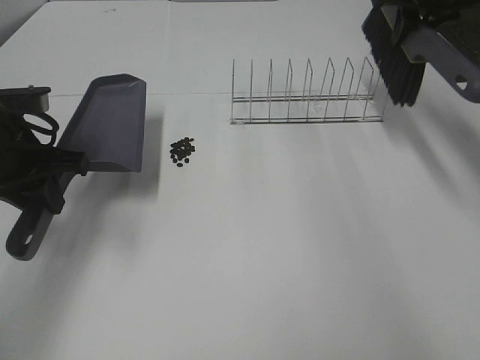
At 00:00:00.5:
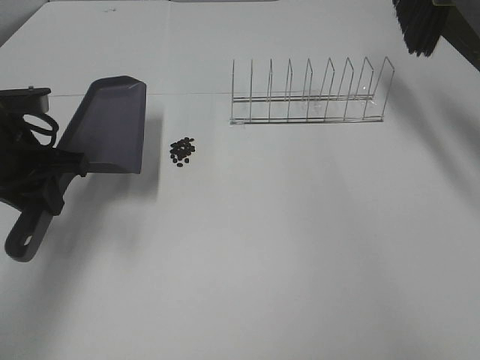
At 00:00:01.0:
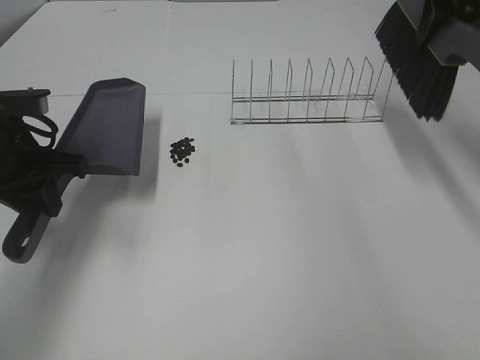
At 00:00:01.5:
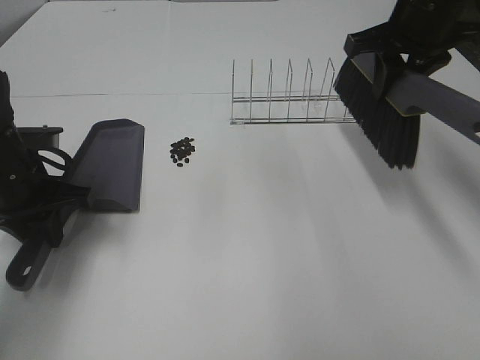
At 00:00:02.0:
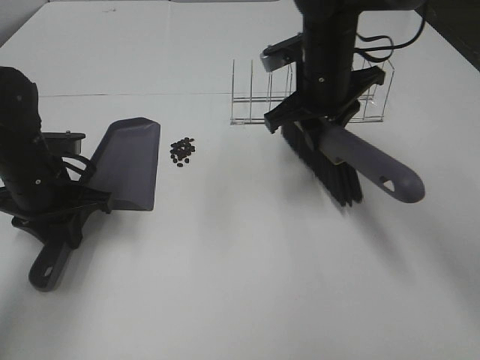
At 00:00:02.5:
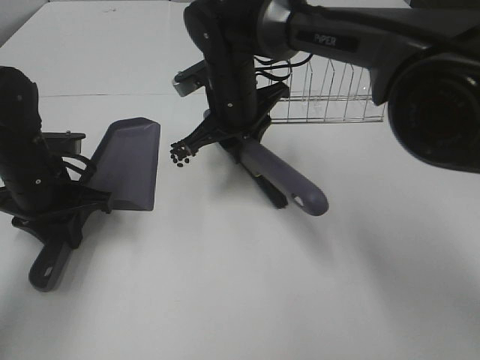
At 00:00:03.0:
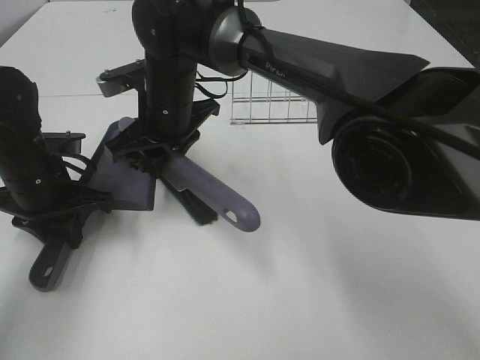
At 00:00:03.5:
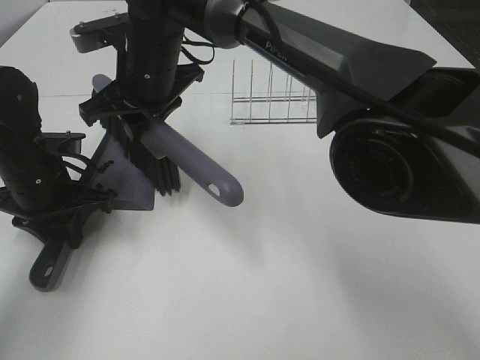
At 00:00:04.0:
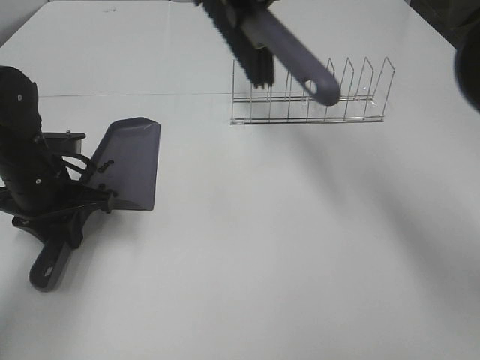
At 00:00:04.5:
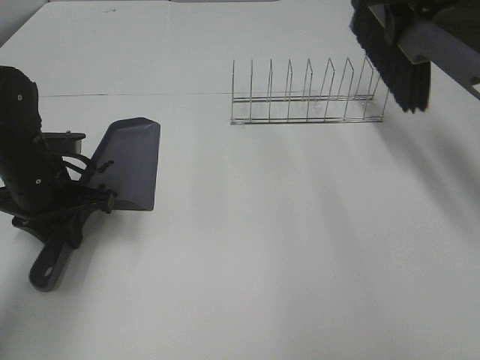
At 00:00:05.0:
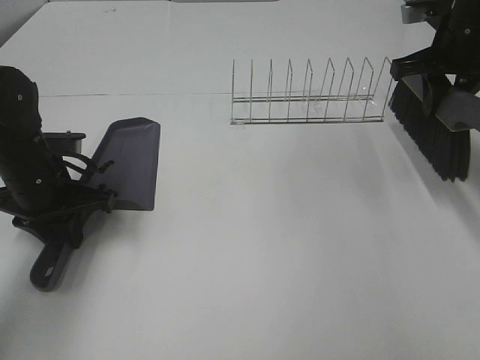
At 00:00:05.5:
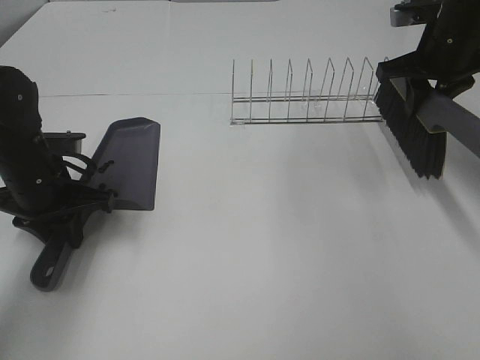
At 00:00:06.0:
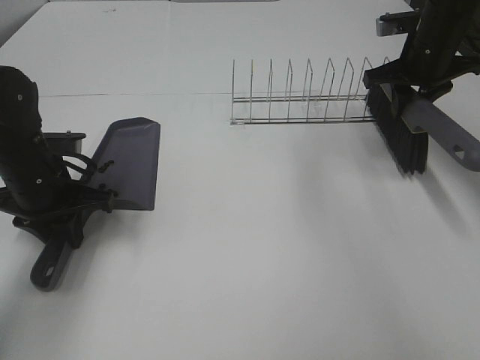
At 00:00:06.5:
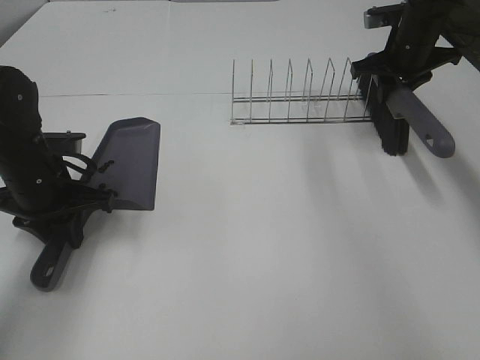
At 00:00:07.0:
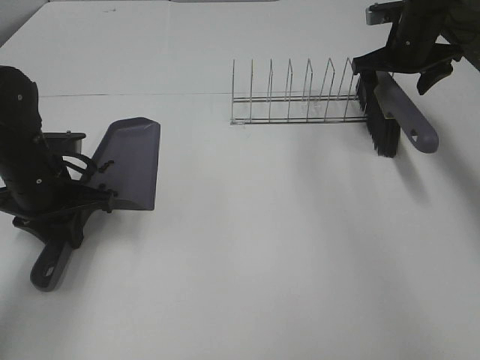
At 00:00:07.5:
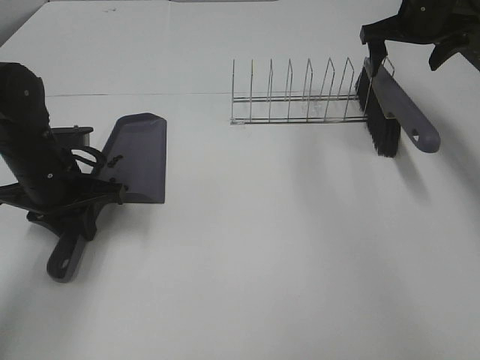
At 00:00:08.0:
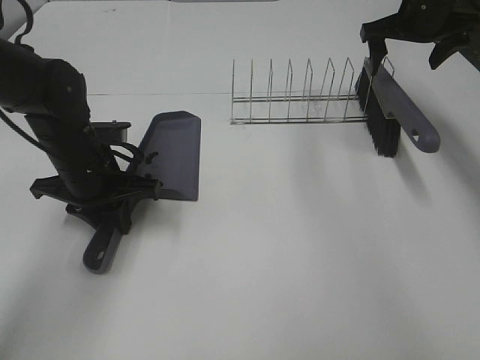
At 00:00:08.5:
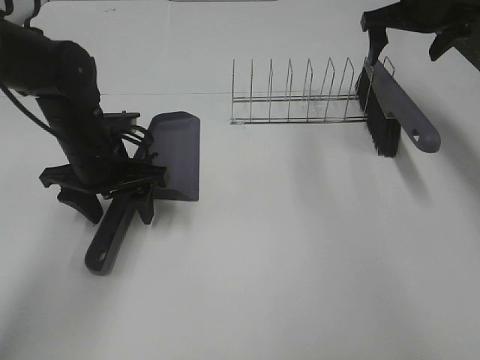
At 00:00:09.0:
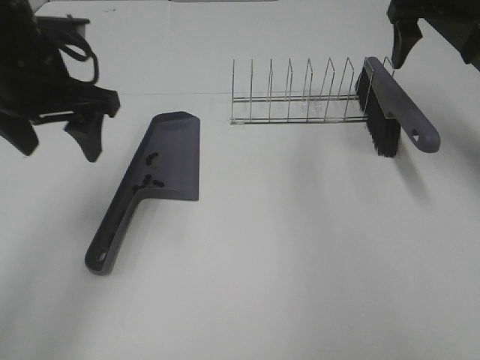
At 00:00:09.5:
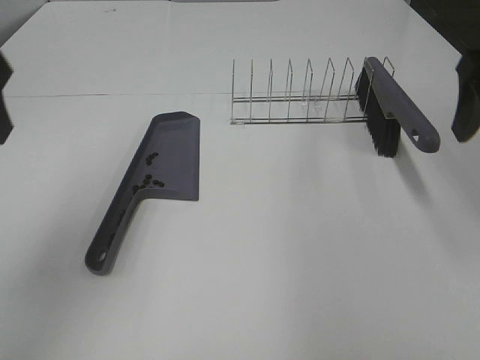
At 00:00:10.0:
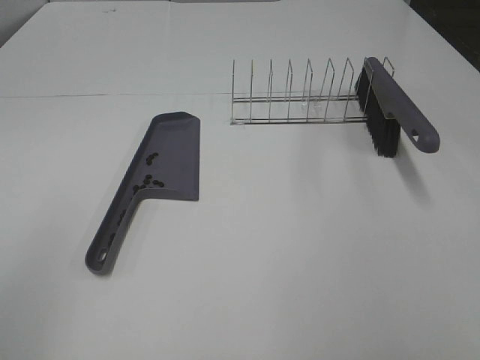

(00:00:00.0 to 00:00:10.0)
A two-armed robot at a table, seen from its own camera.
Task of the whole recording: Sweep Coffee Bean.
Step, 00:00:00.0 - 00:00:03.5: Right hand:sweep the coffee beans into the dustpan.
Step, 00:00:04.0 - 00:00:07.0: Right hand:place the broom on the rack.
Step, 00:00:07.5 - 00:00:08.5: Left hand:place the dustpan on the table.
00:00:00.0 - 00:00:02.0: The left gripper goes about 5 cm downward. Meanwhile the right gripper is displaced to the left, downward and backward by some 25 cm.
00:00:02.0 - 00:00:04.0: The right gripper is displaced upward by approximately 15 cm, and reaches some 20 cm to the left, then returns.
00:00:04.0 - 00:00:06.0: The right gripper is displaced to the right and downward by some 25 cm.
00:00:06.0 - 00:00:08.0: The left gripper moves to the right, roughly 5 cm; the right gripper moves roughly 5 cm, and opens up.
00:00:08.0 - 00:00:10.0: The left gripper moves backward, upward and to the left, approximately 35 cm, and opens up, while the right gripper heads backward, covering some 40 cm.

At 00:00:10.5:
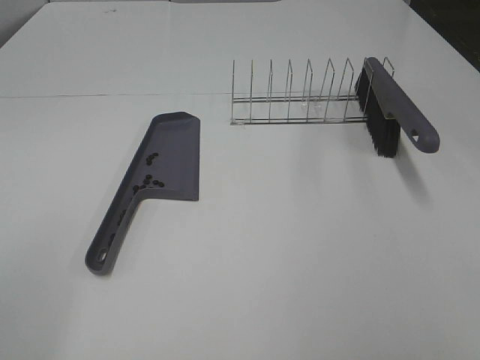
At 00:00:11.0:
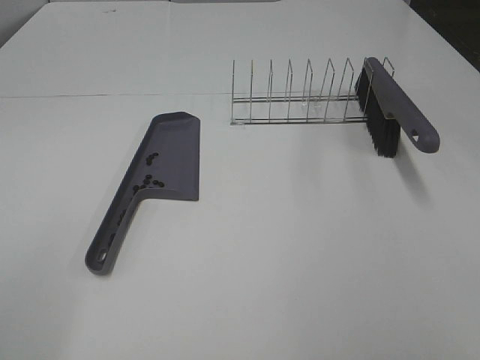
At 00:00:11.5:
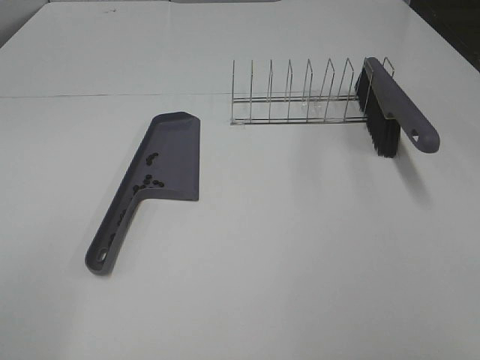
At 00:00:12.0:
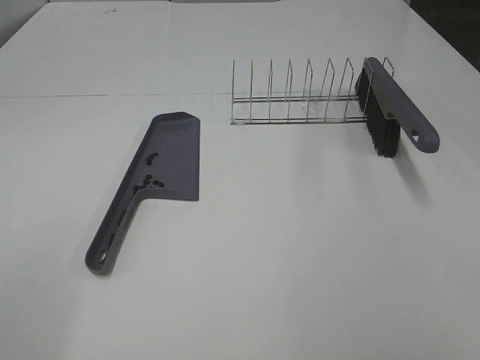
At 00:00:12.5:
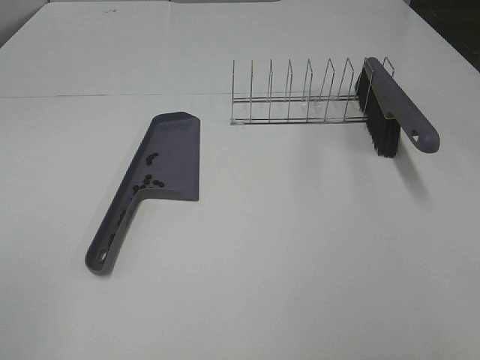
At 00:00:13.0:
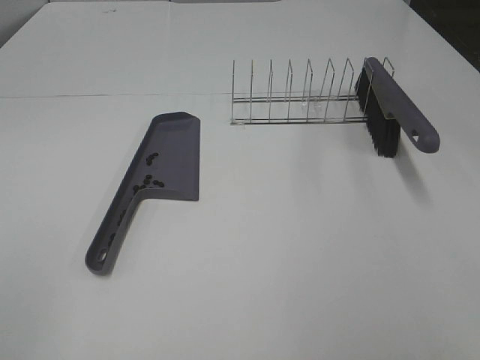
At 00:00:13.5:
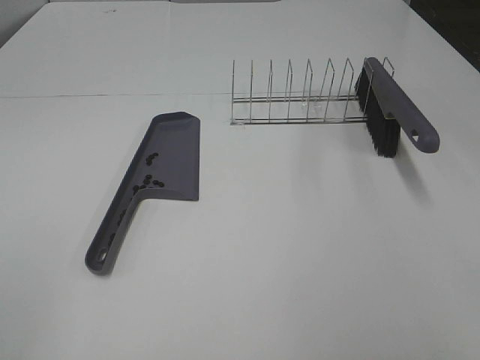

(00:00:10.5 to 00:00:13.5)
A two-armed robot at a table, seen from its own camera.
Task of the whole recording: Sweep Coffee Bean.
00:00:10.5 - 00:00:12.0: Neither gripper changes place.
